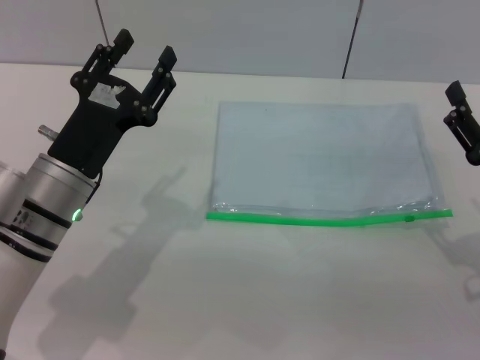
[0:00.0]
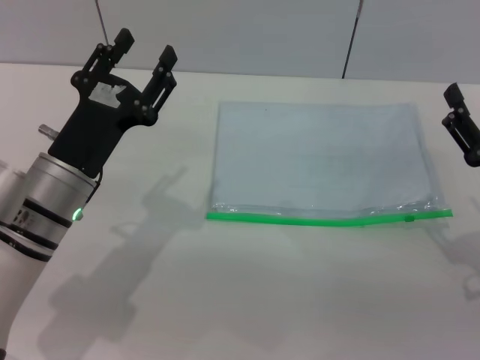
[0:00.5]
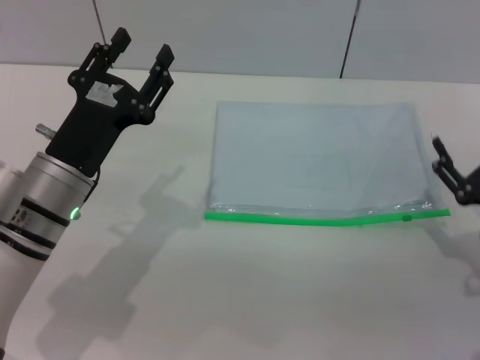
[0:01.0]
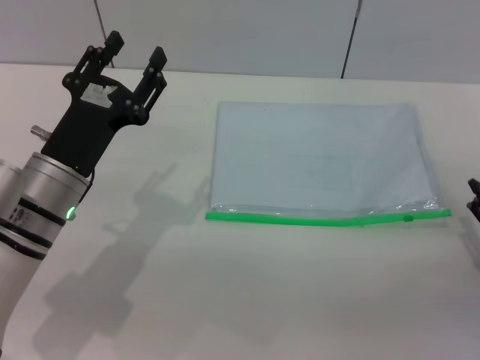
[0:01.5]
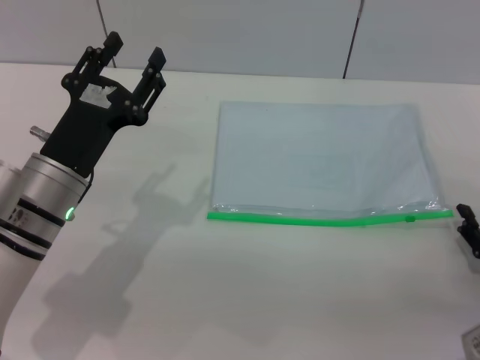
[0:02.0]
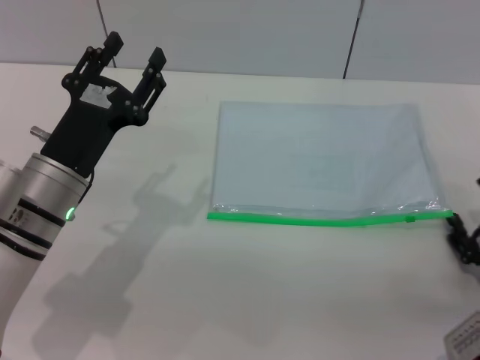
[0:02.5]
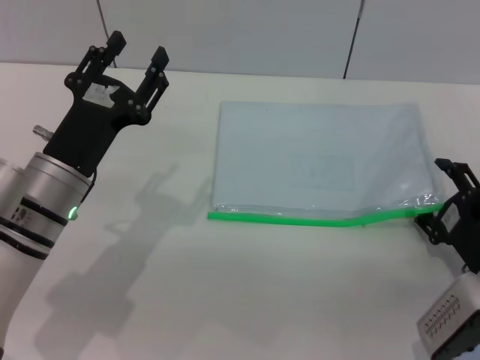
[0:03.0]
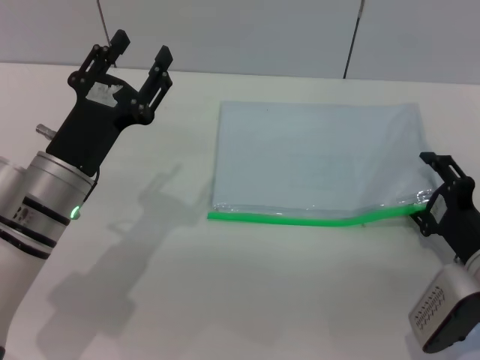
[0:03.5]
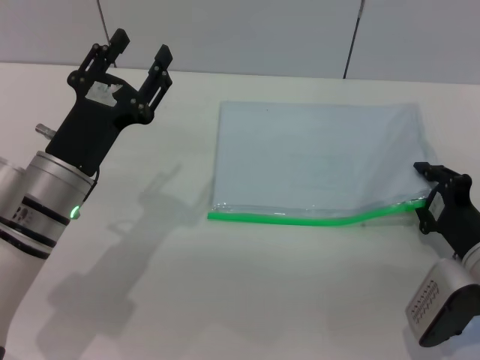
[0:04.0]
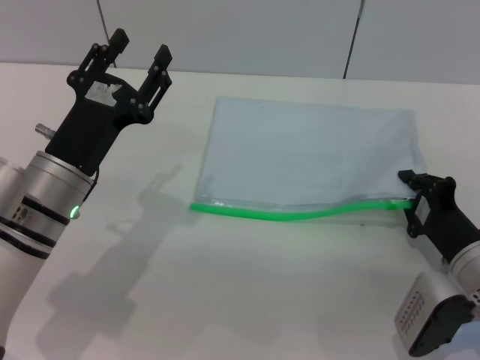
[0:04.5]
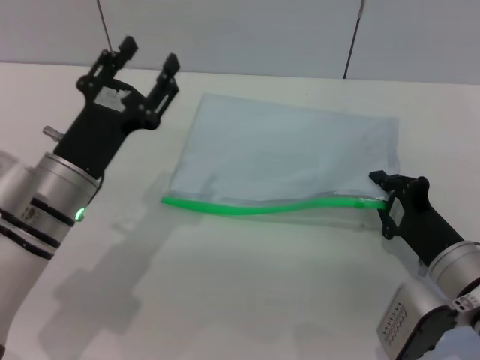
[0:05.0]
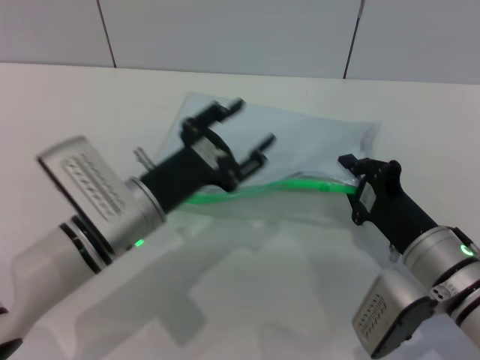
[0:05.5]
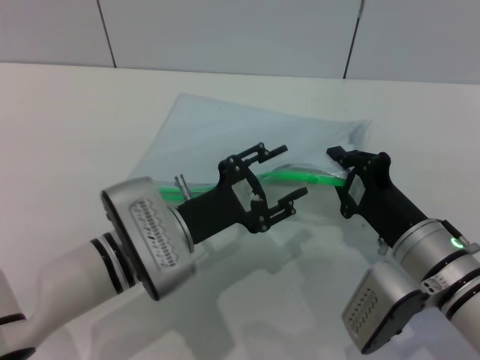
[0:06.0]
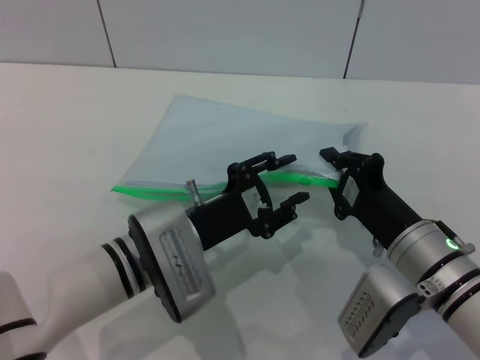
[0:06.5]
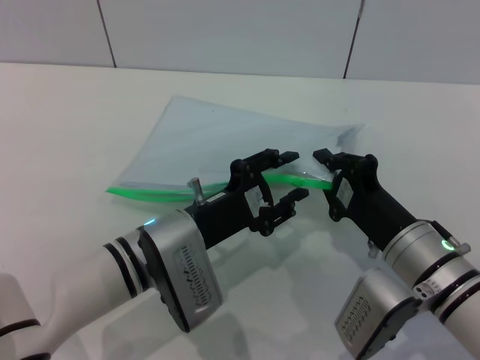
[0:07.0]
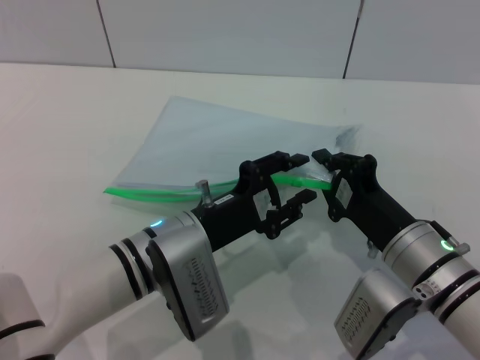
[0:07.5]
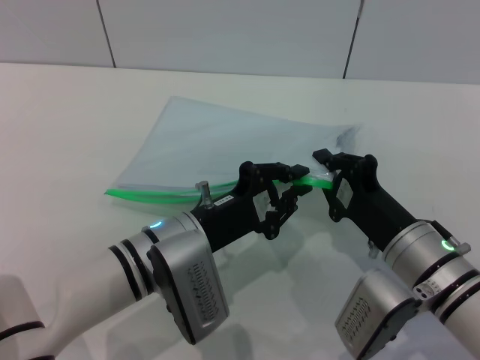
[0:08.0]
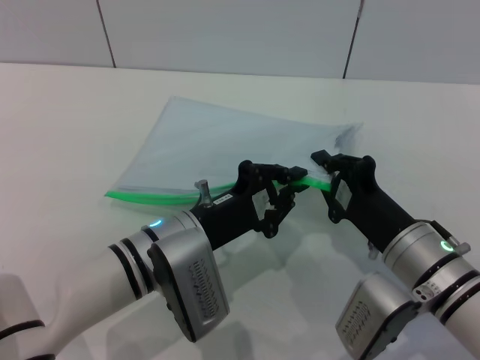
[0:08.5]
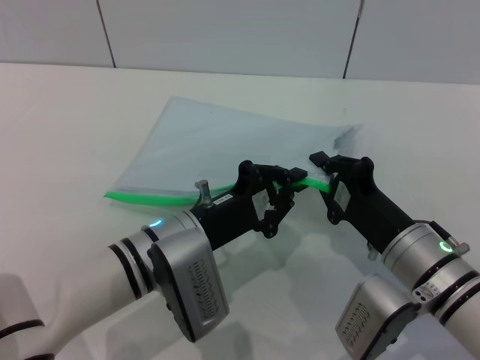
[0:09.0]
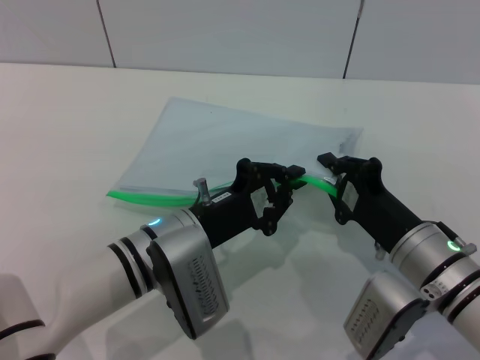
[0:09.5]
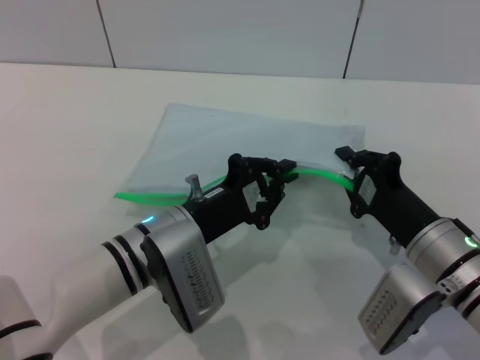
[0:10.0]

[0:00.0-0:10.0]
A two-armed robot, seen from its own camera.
Step, 0:00.0 to 0:05.0: Pick up the transparent plastic bag with the right gripper.
0:00.0 to 0:02.0: The right gripper heads downward, covering some 5 cm.
0:02.0 to 0:04.0: The right gripper shifts about 5 cm forward, and closes its fingers.
0:04.0 to 0:06.0: The left gripper heads to the right, covering about 5 cm; the right gripper goes about 10 cm to the left, and closes its fingers.
0:06.0 to 0:08.0: The left gripper closes.
0:08.0 to 0:10.0: The grippers stay close to where they were, moving slightly.

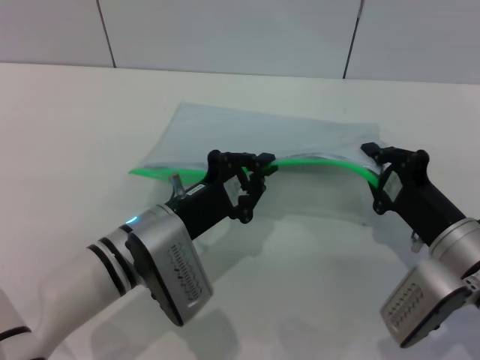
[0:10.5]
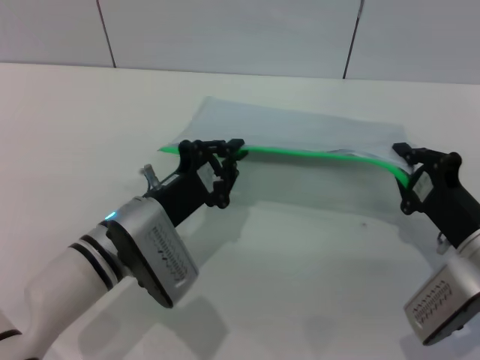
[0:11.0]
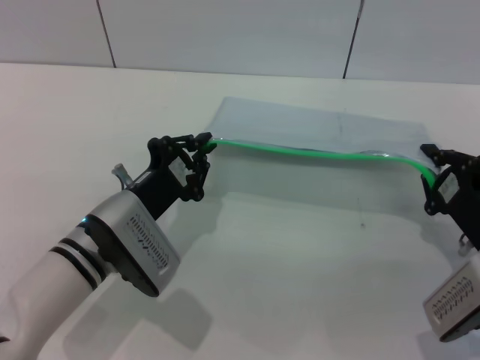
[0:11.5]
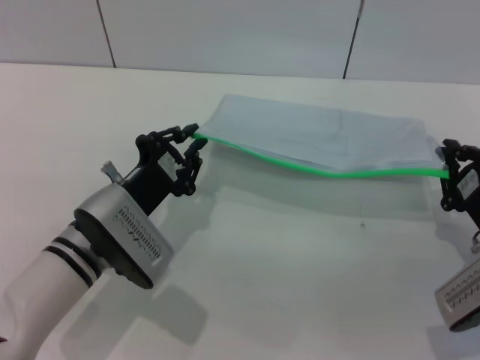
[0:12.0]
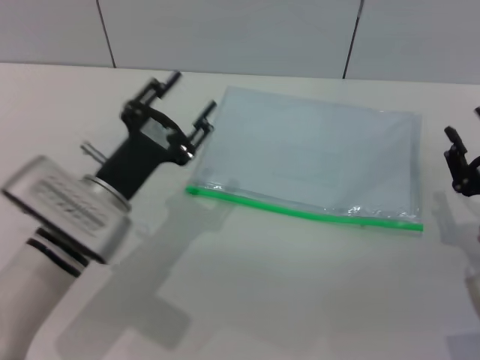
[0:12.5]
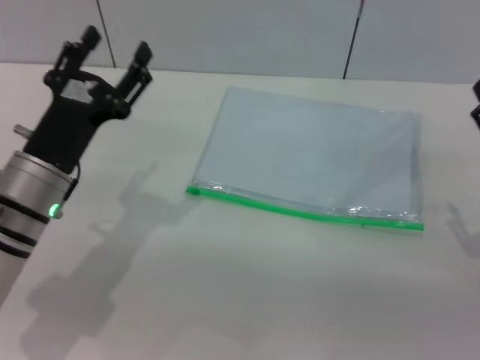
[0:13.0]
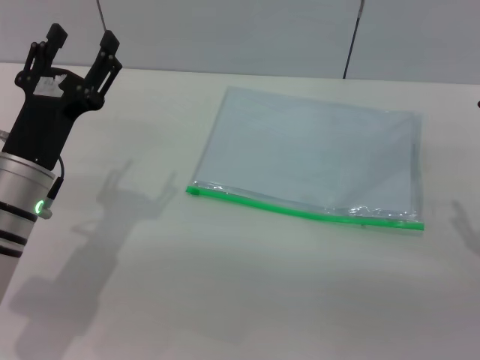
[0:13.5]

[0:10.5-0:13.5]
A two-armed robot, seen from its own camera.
Step, 0:12.5 to 0:13.0: Place the transparent plastic bag.
0:10.5 to 0:12.0: The right gripper heads to the right, covering some 5 cm.
0:12.0 to 0:13.5: The left gripper heads to the left, covering some 5 cm, and opens up. The right gripper shifts by roughly 5 cm, and opens up.

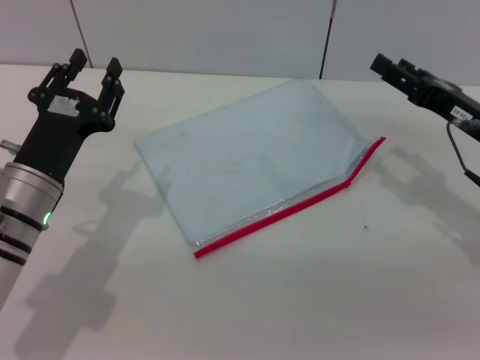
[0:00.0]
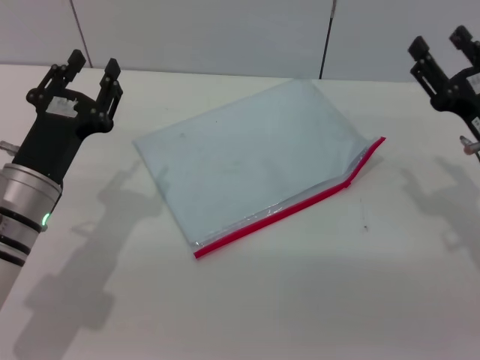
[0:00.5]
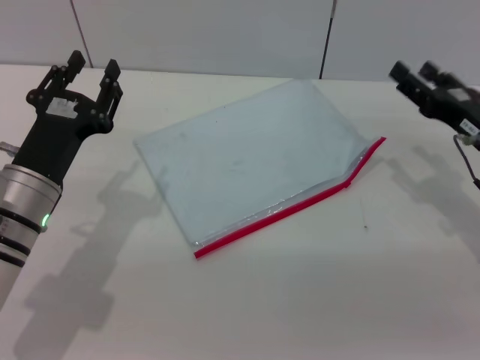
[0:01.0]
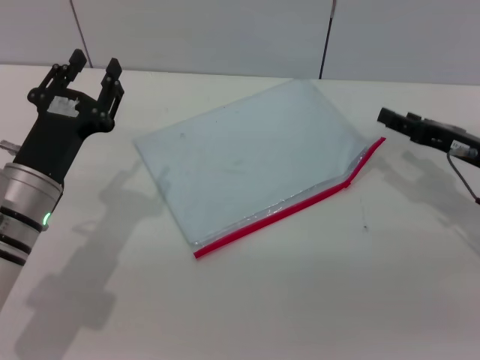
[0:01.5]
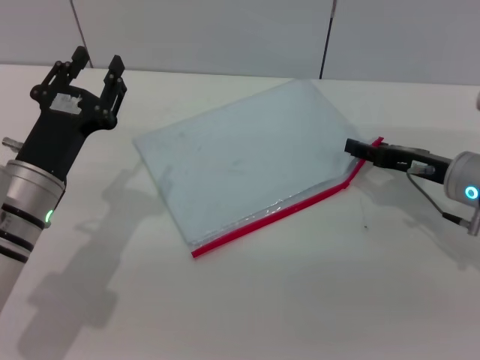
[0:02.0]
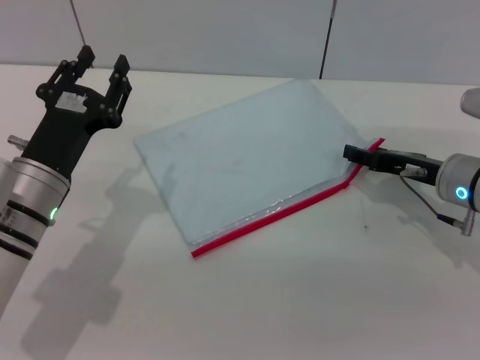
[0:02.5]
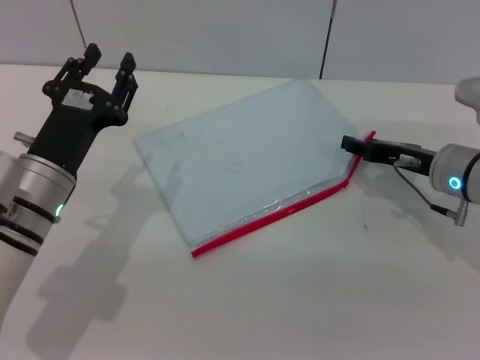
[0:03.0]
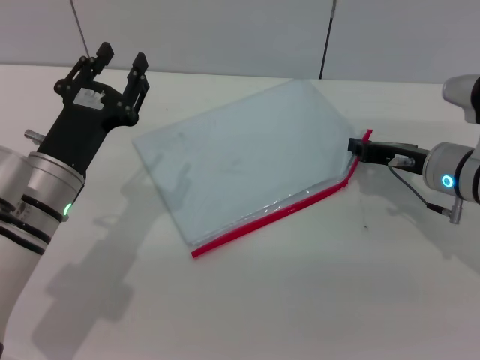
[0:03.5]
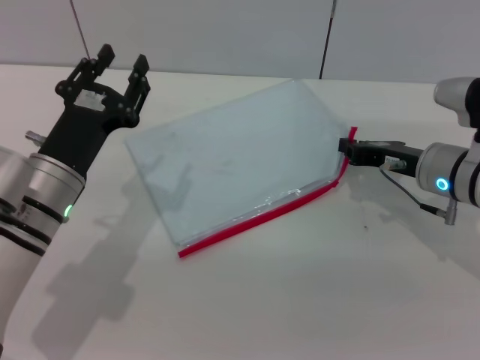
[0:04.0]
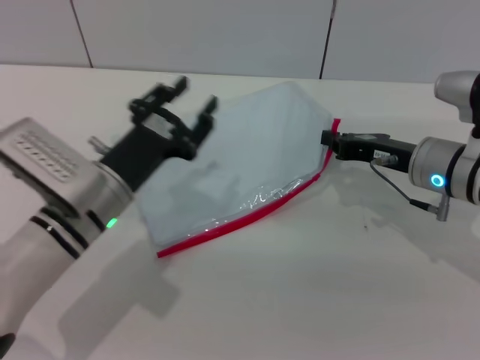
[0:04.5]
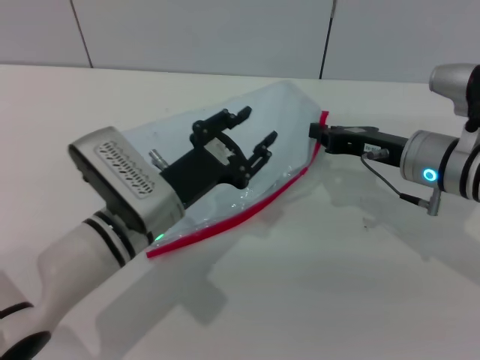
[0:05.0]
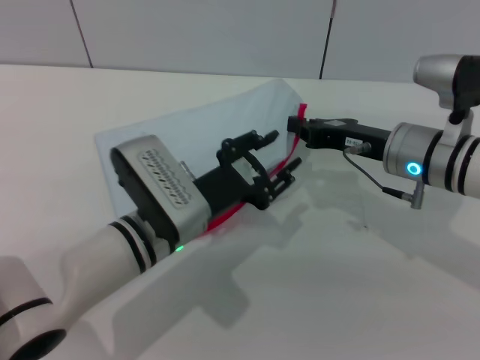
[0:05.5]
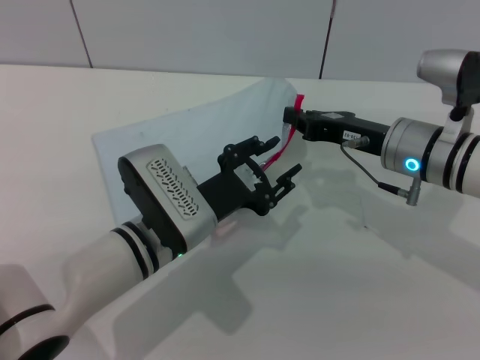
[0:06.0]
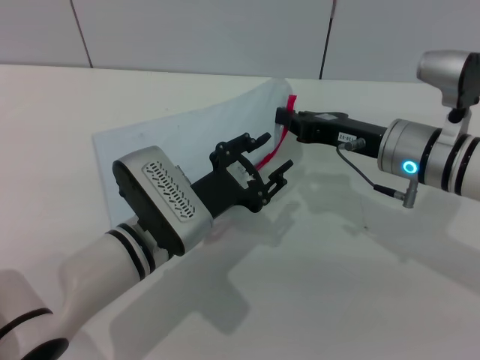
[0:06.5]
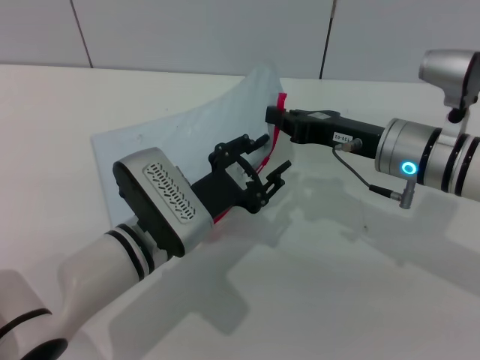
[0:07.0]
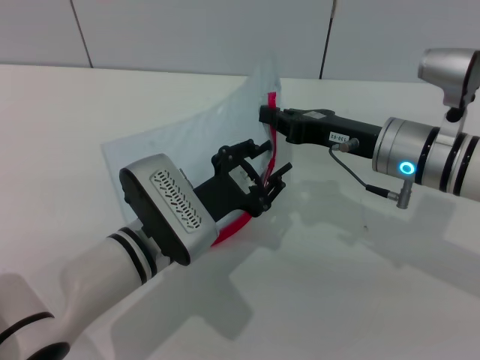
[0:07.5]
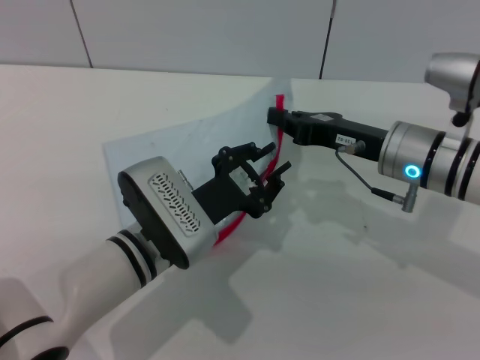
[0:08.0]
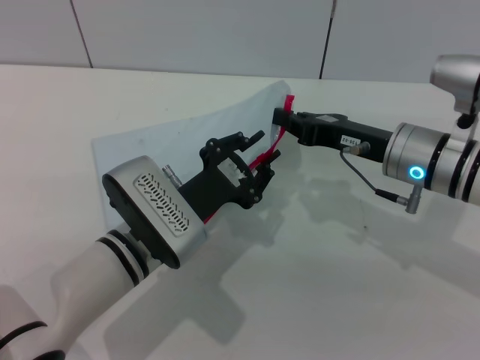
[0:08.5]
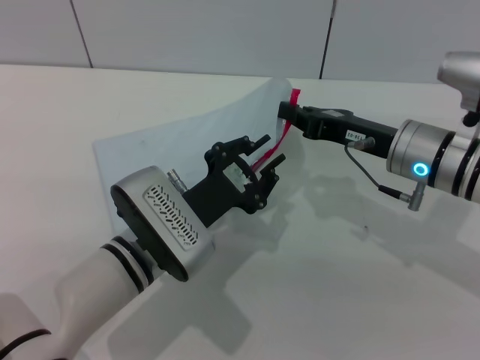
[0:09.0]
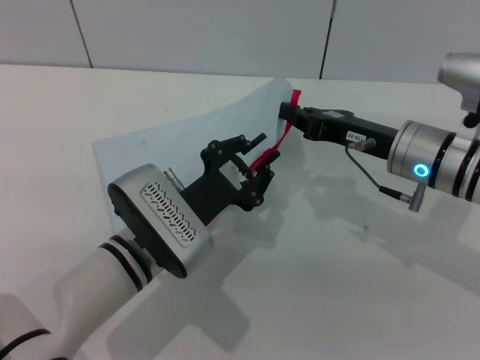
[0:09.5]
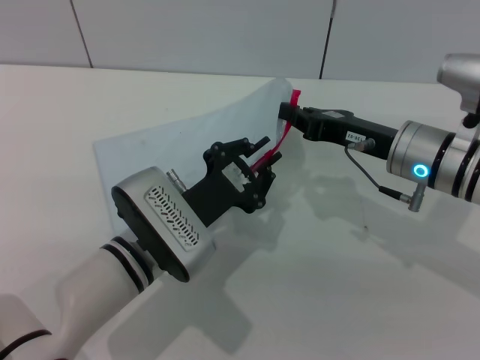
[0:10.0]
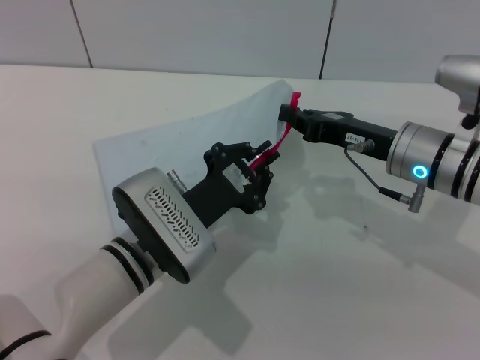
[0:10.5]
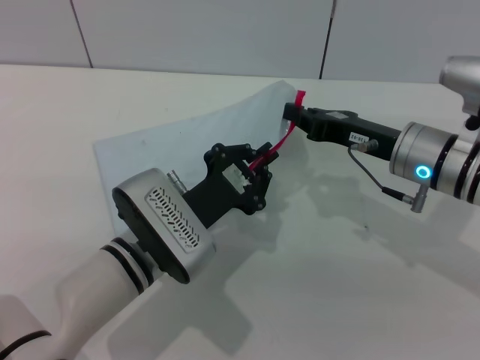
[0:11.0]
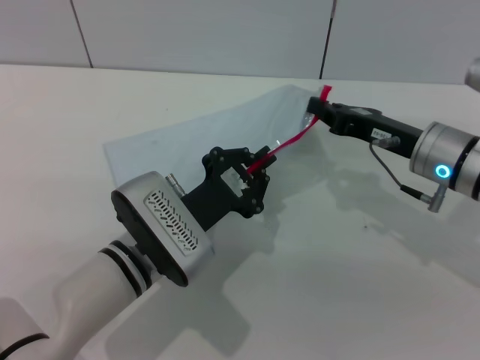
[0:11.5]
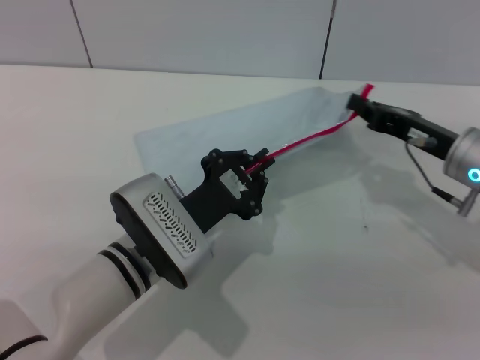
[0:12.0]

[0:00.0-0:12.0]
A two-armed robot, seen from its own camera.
Step, 0:00.0 to 0:04.5: Pick up the transparent plastic bag with the right gripper.
0:02.0 to 0:04.0: The right gripper closes its fingers.
0:04.0 to 0:06.0: The left gripper is displaced to the right by approximately 10 cm; the right gripper moves roughly 5 cm.
0:06.0 to 0:10.0: The grippers stay close to where they were, moving slightly.
0:10.0 to 0:12.0: The right gripper travels to the right by roughly 5 cm; the left gripper closes up.
